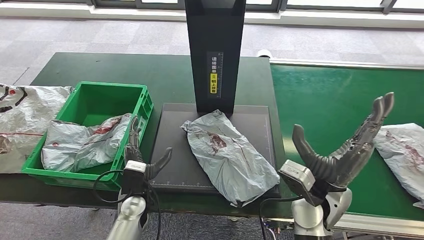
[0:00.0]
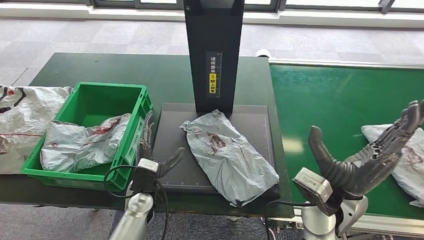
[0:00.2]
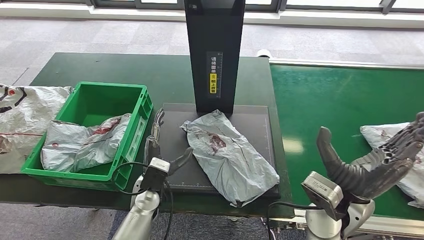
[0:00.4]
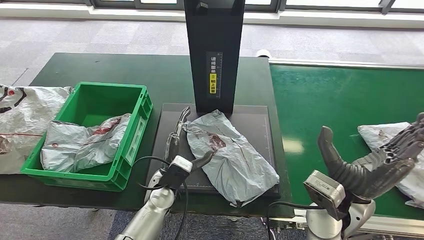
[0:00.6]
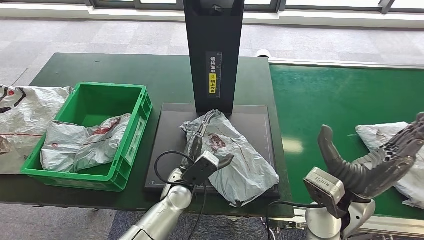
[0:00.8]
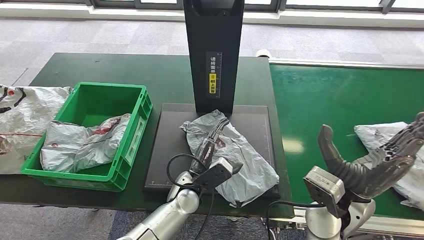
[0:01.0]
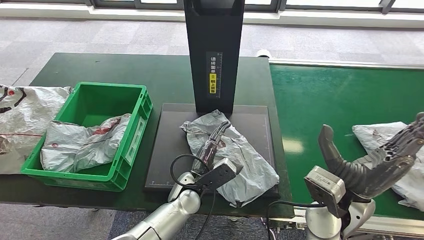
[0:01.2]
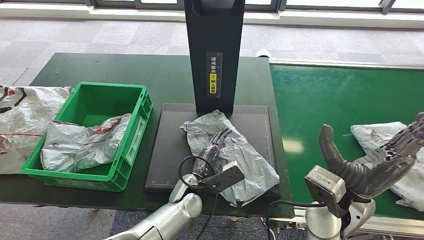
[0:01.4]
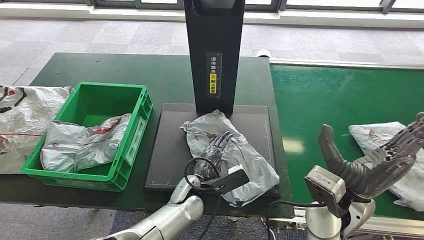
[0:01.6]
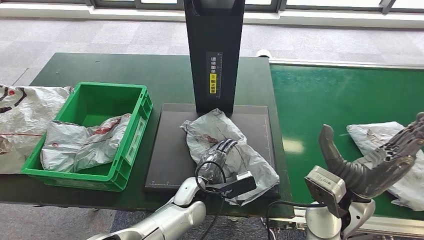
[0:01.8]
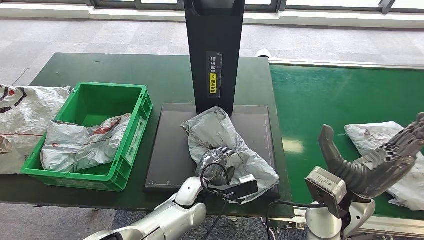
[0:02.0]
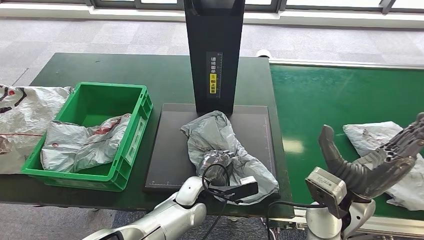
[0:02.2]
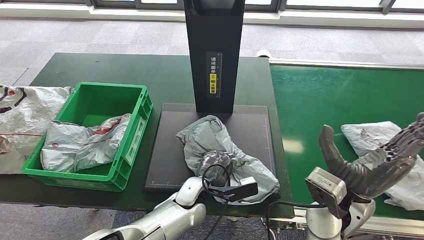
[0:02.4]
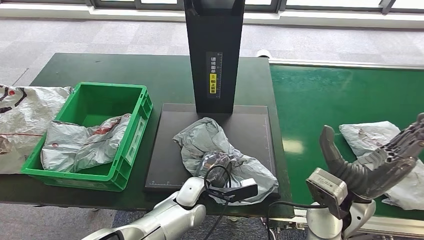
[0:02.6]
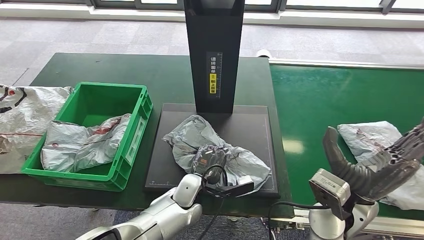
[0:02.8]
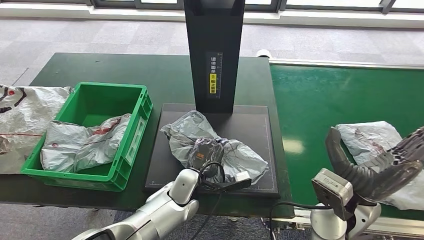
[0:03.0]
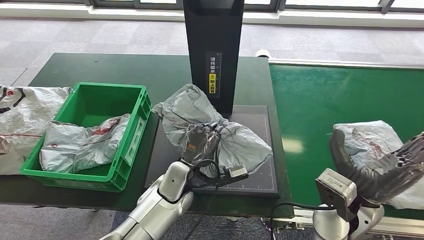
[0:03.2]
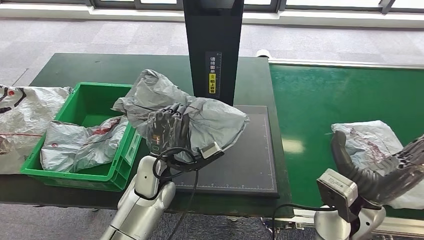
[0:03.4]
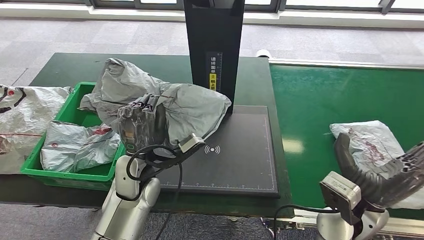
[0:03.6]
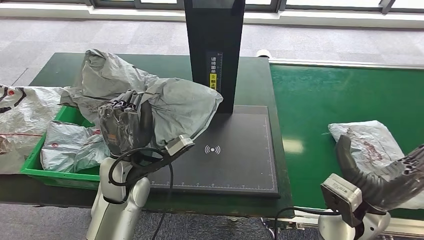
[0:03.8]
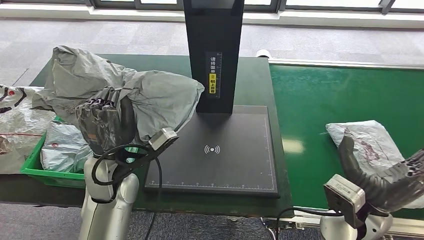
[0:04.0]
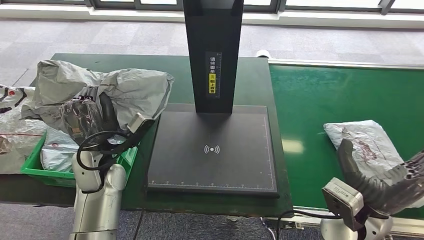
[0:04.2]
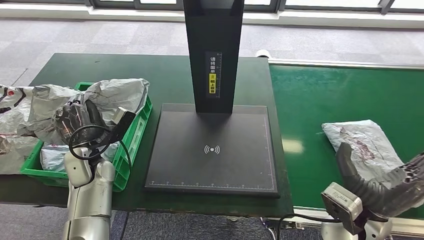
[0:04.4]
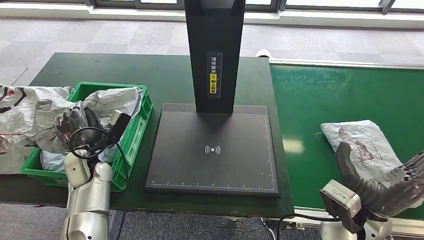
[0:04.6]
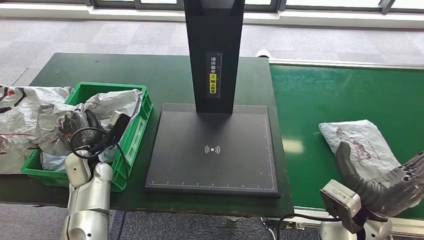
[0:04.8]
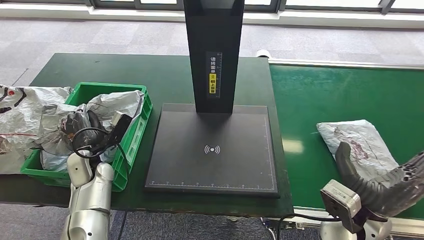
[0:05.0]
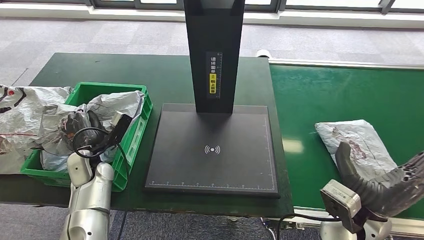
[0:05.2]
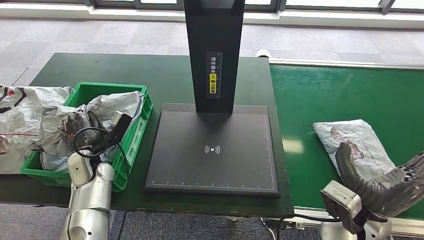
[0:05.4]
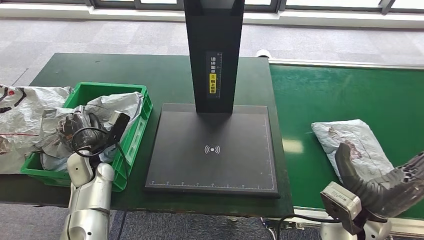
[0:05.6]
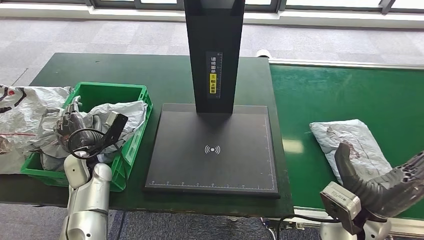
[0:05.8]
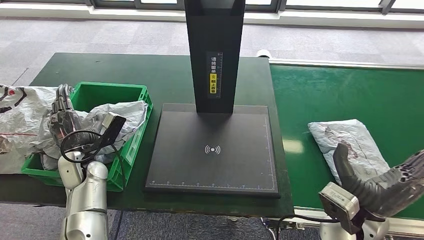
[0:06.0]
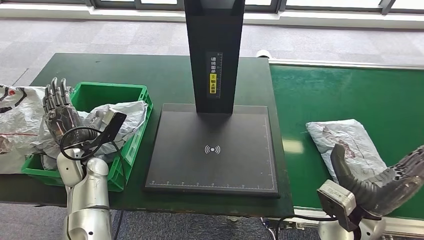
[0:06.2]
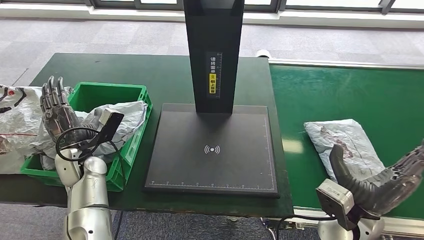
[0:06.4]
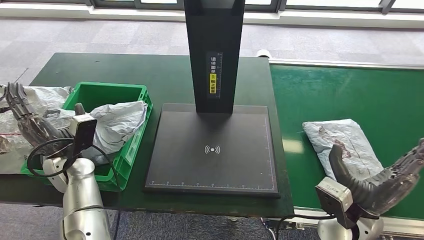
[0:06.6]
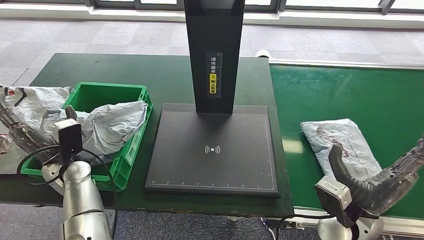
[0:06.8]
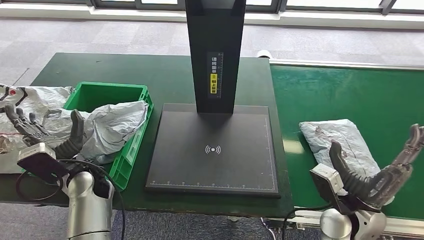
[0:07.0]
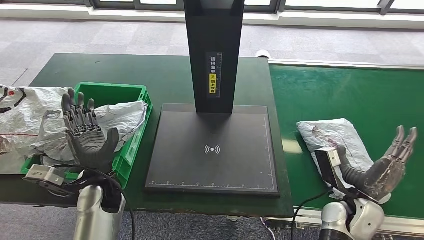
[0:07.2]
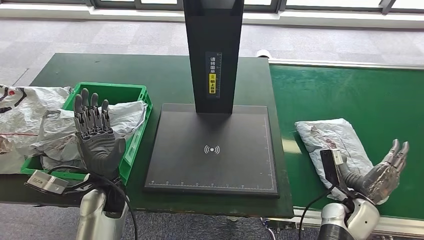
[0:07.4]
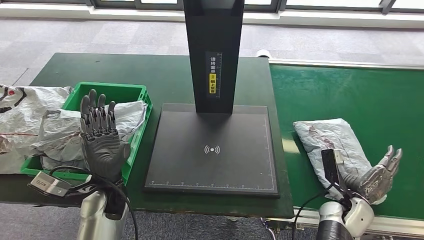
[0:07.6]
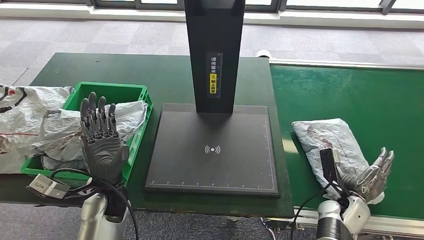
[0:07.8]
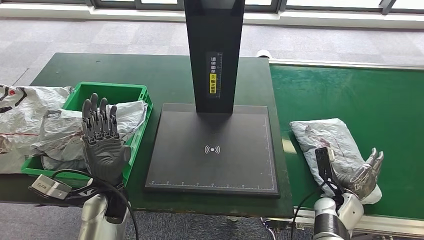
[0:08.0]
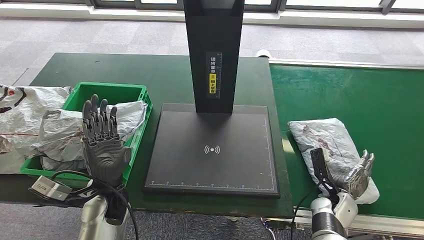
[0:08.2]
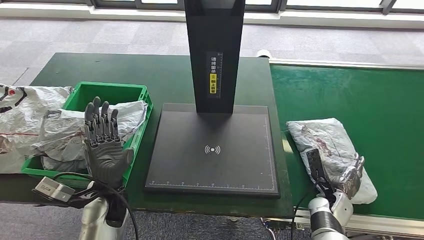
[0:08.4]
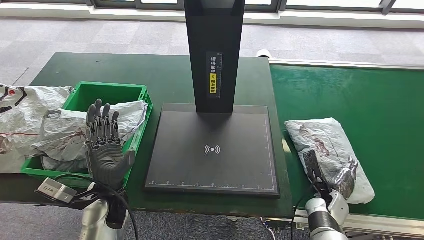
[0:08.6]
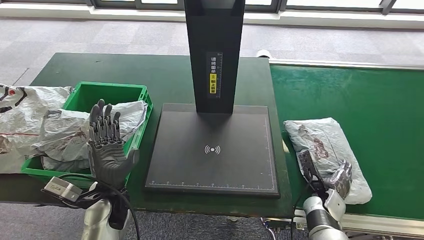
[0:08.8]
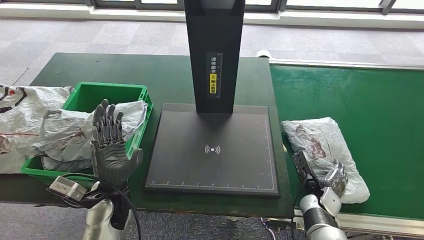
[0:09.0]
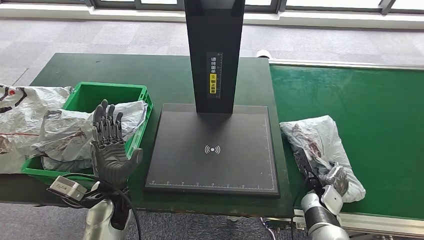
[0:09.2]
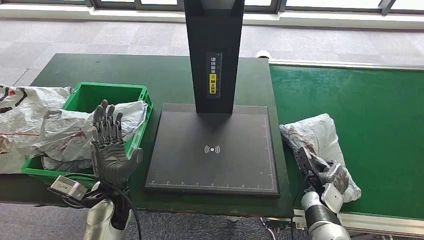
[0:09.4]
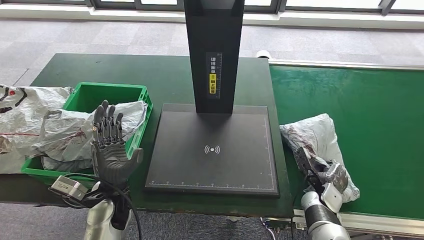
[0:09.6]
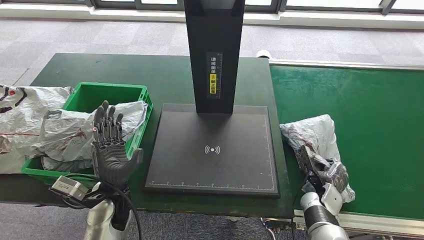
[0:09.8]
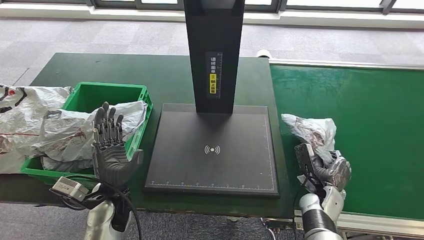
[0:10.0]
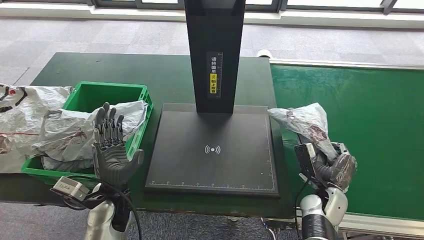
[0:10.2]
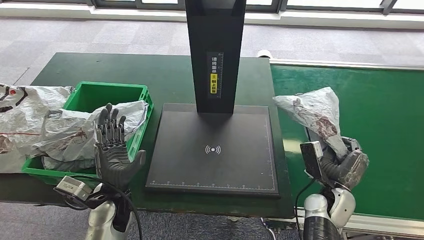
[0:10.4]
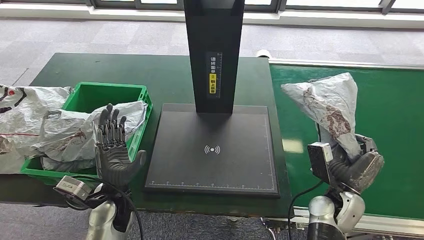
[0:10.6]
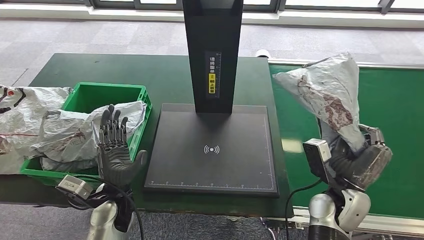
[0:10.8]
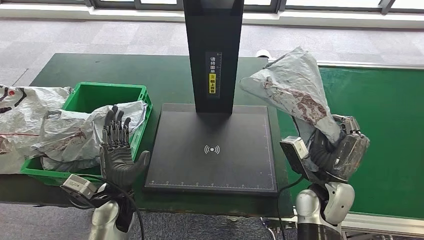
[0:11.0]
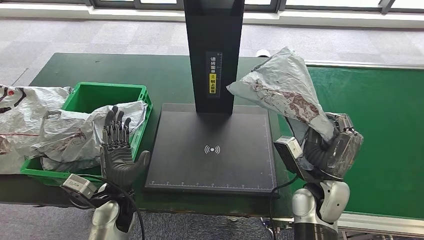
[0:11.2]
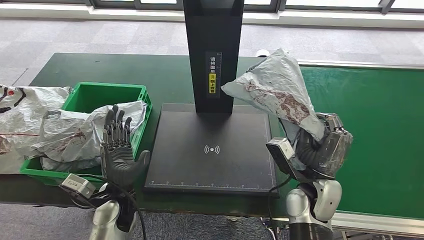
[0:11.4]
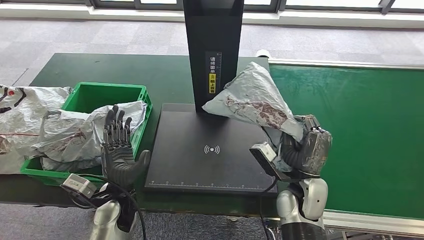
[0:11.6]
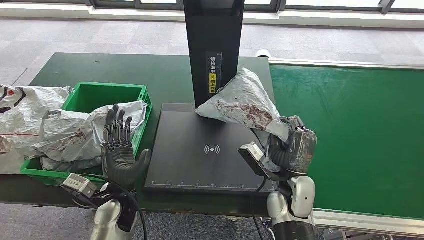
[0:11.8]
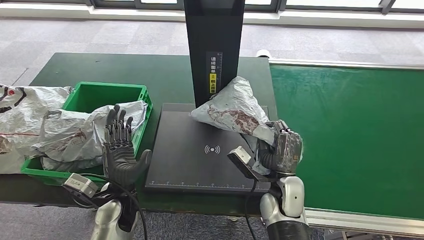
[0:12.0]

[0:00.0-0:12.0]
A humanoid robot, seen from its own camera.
Step, 0:01.0 to 0:03.8: Pick up the parcel from the inbound machine.
Step, 0:04.0 to 0:07.6: Place the parcel into the delivery box.
Step, 0:08.0 to 0:10.6: Pick up the parcel from the conveyor belt.
0:00.0 to 0:01.6: The left hand travels to the right by about 15 cm.
0:04.4 to 0:06.0: The hands stay close to where they were, moving slightly.
0:06.0 to 0:07.6: The left hand moves to the right and backward, approximately 10 cm, while the right hand travels downward and to the right by approximately 15 cm.
0:07.6 to 0:09.0: The right hand changes place by about 5 cm.
0:09.0 to 0:10.4: The right hand goes about 5 cm upward.
0:10.4 to 0:12.0: The right hand moves to the left, some 10 cm.

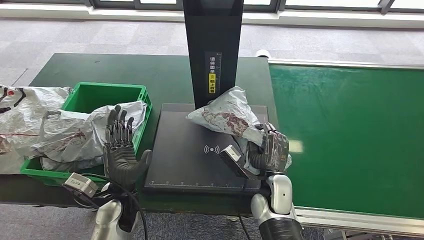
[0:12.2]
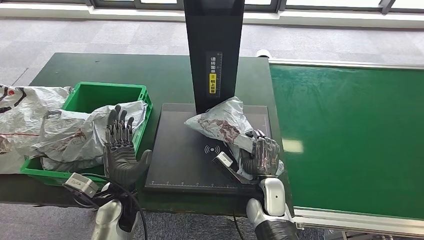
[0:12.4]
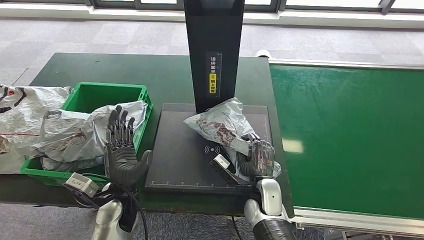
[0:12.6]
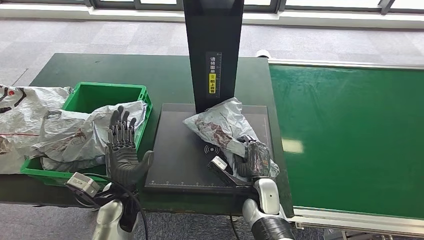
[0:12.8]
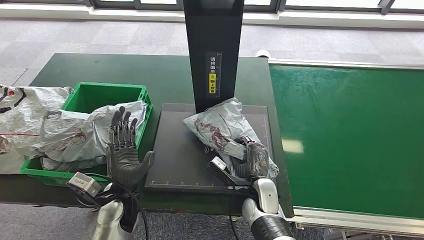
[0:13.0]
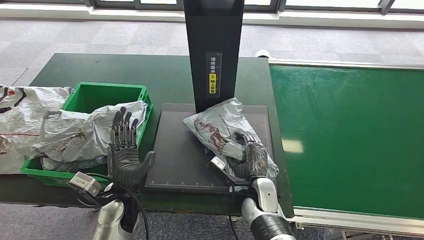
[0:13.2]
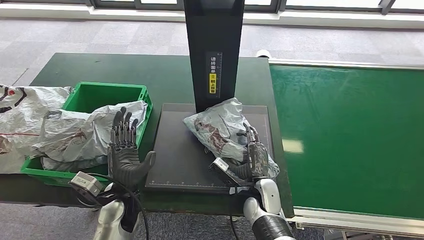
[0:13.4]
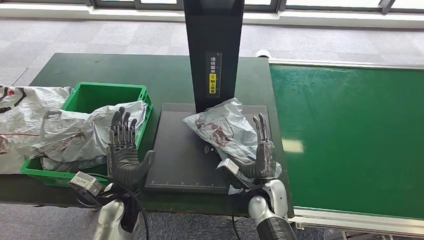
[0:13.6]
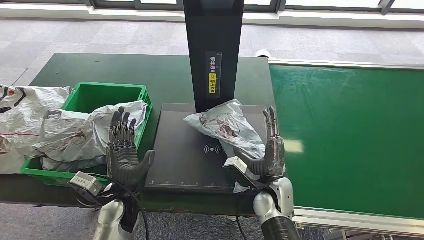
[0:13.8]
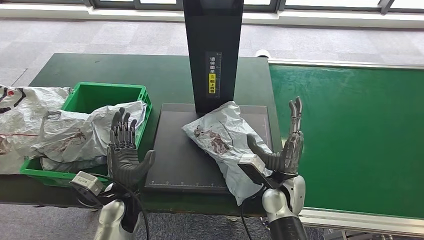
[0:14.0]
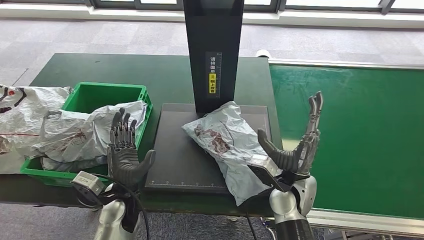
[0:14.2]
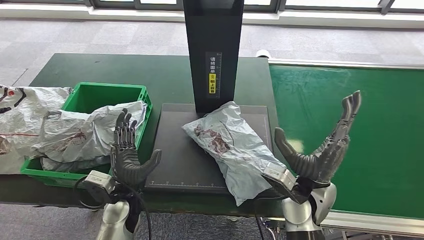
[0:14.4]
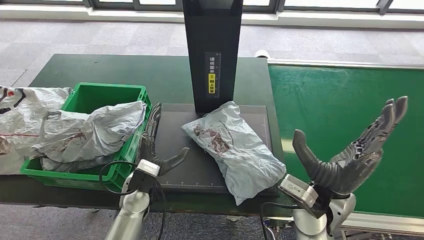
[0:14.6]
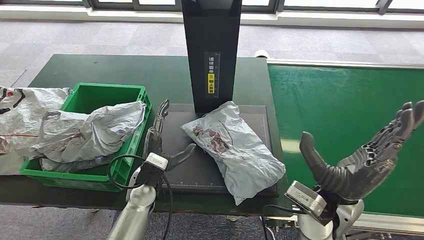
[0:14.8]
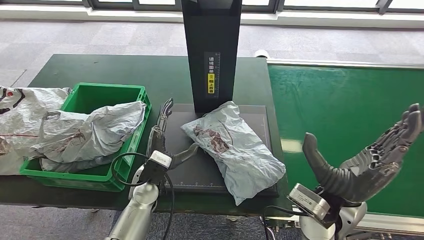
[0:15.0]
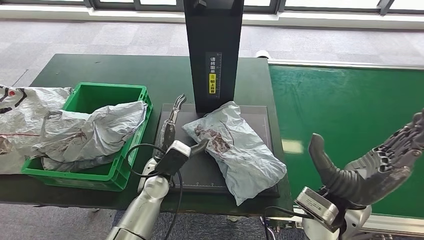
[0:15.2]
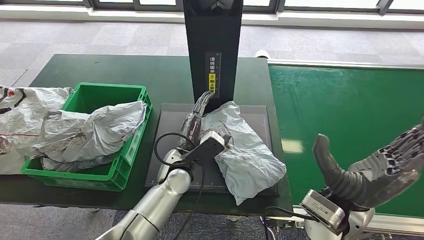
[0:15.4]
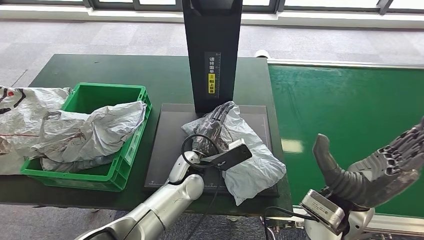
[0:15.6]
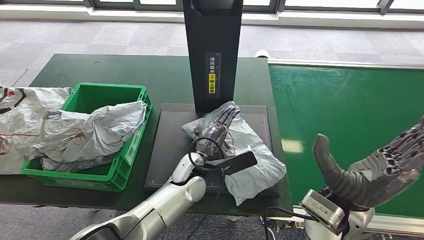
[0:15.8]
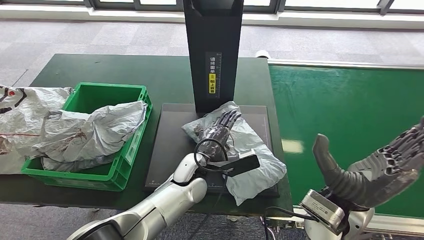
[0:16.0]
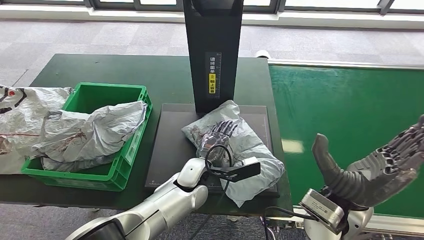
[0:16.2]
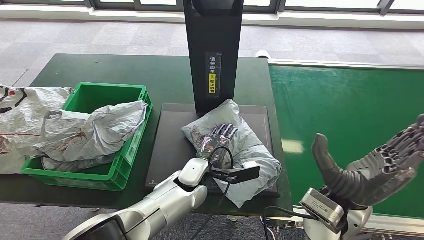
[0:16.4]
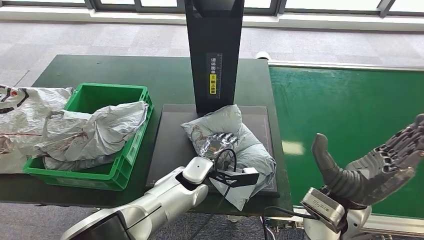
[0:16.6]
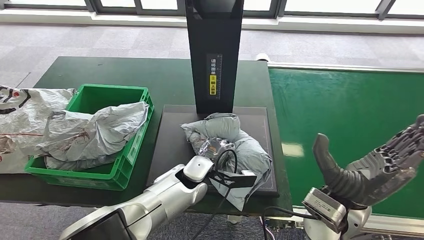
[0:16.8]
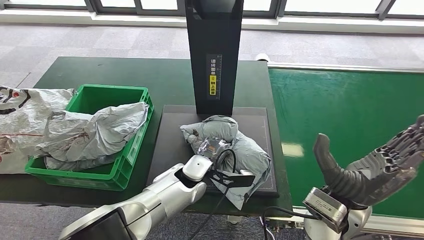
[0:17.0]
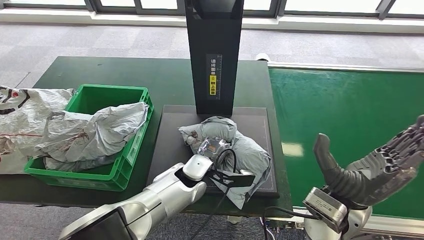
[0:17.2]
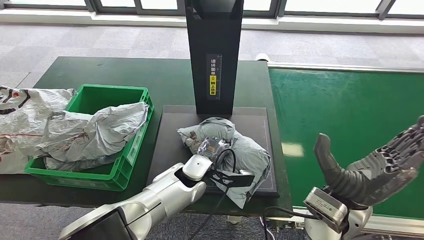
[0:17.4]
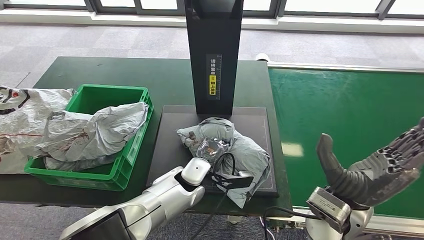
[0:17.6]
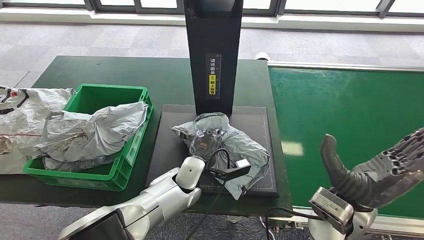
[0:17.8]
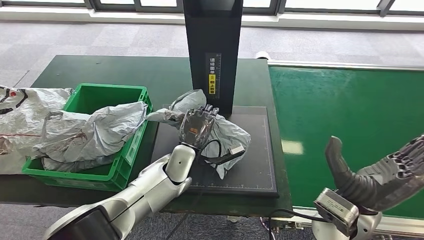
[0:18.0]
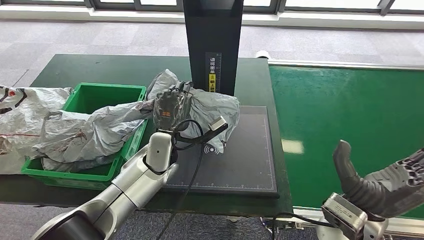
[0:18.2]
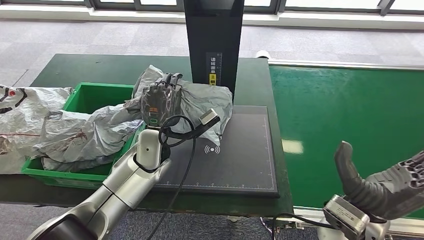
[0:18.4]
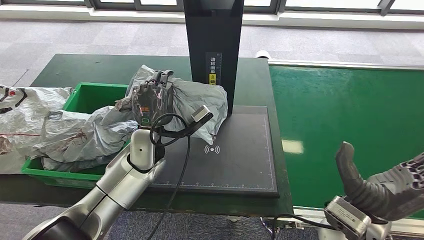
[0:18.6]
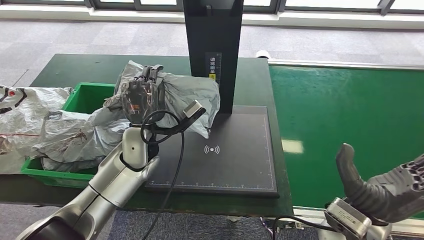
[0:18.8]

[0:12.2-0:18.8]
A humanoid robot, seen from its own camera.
Step, 0:12.2 to 0:14.0: Place the parcel onto the inbound machine.
Step, 0:14.2 to 0:18.2: Pick up the parcel from the inbound machine.
0:12.2 to 0:13.8: The hands move only a little.
